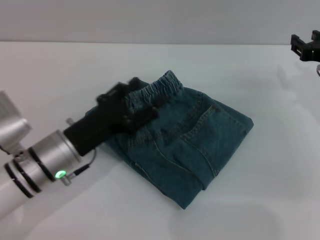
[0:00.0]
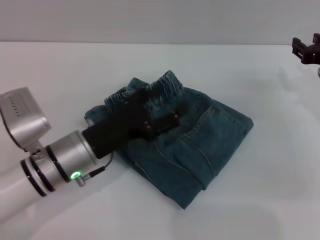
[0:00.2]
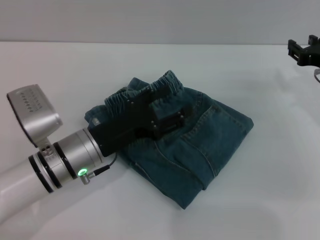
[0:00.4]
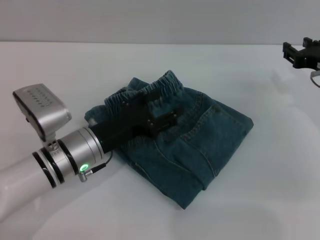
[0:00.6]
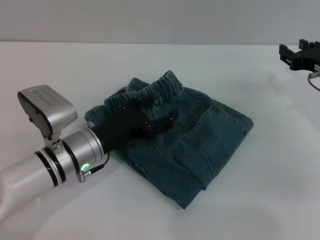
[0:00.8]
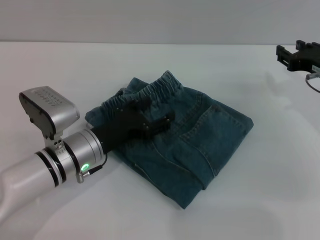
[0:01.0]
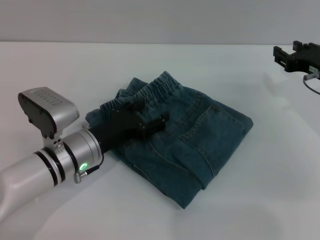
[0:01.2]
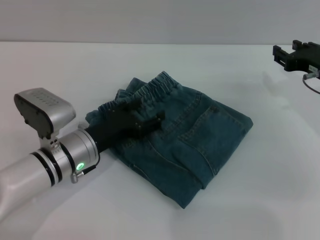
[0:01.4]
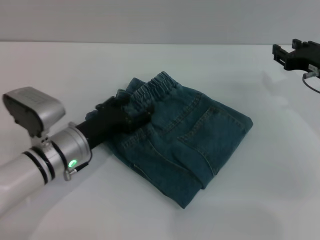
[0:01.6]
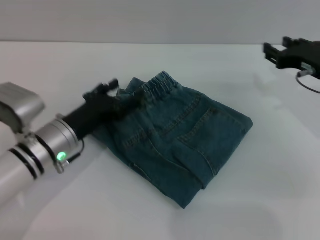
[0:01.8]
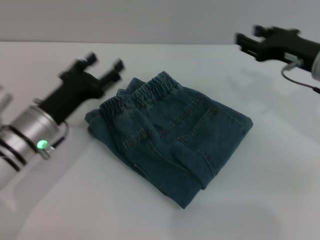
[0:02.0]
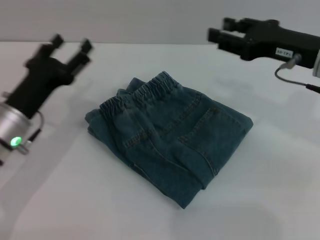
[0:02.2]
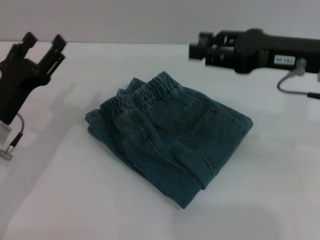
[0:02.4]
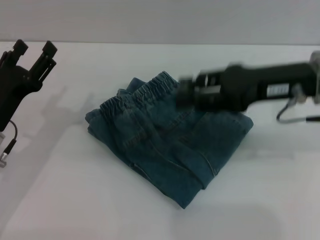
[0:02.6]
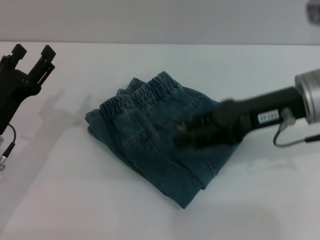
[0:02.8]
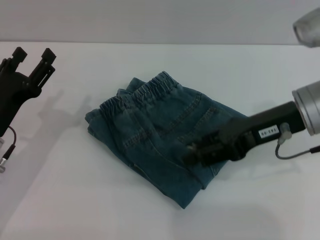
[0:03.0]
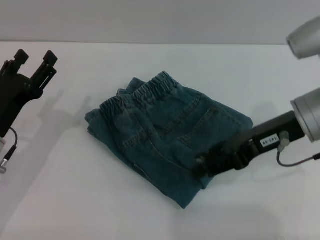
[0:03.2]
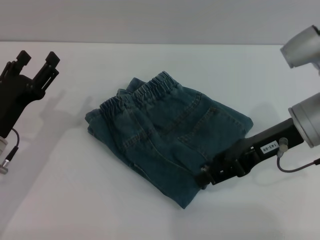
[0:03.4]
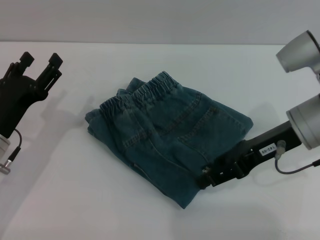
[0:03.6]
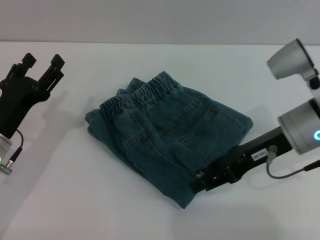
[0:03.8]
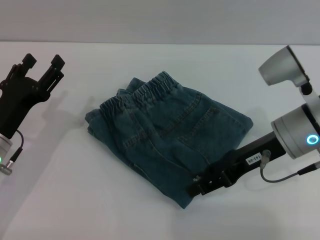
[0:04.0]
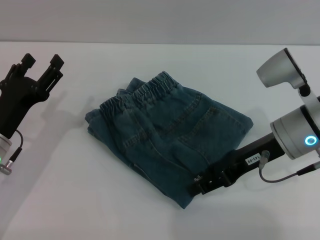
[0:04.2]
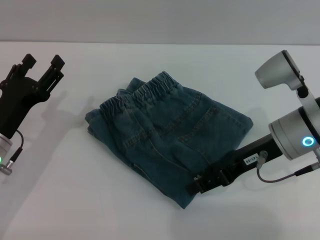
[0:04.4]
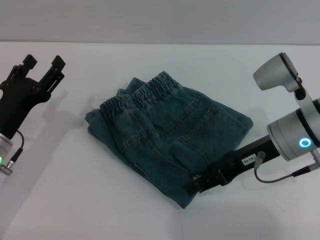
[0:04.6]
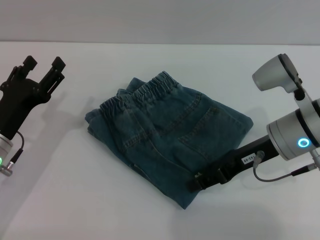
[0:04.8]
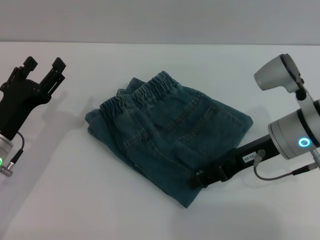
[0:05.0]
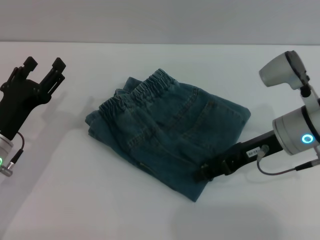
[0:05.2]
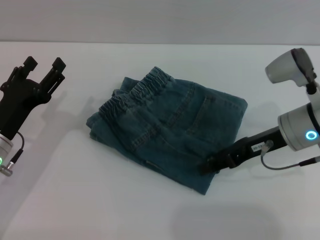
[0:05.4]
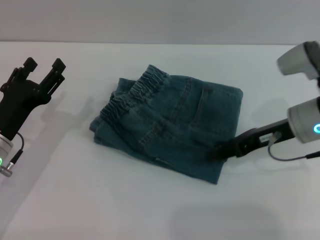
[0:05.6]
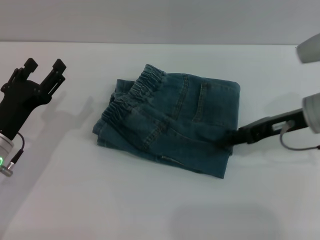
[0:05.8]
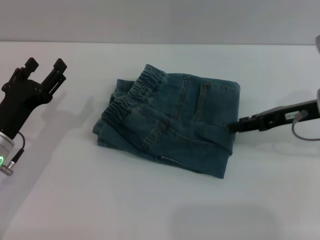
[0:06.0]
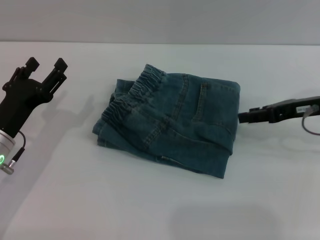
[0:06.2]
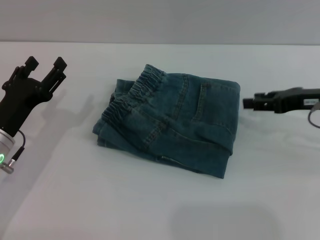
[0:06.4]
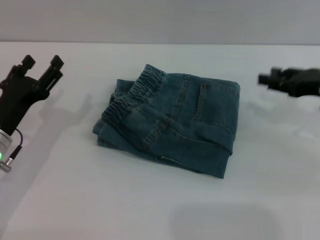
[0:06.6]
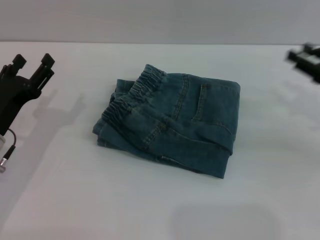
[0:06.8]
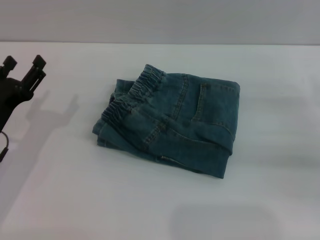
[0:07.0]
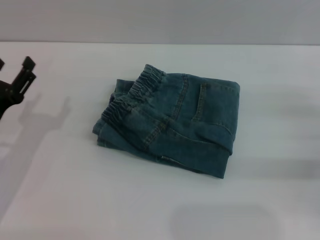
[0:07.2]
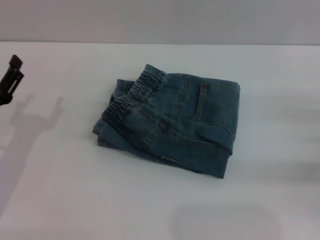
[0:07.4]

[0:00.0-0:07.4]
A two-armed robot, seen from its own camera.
Step, 0:00.0 to 0:06.0: Place the folded trousers onto the center area with the right grippers.
0:00.0 to 0:01.4: The grippers move only a little.
0:01.4 to 0:03.0: The left gripper shifts roughly 10 cm to the left. The right gripper shifts approximately 10 cm to the left, upward and backward.
0:03.0 to 0:04.4: The right gripper shifts approximately 5 cm downward.
0:04.4 to 0:06.0: The right gripper is displaced to the right by some 10 cm.
0:06.0 to 0:07.4: The right gripper heads to the right, backward and downward, covering approximately 15 cm.

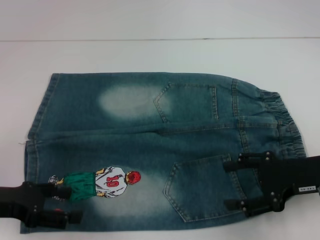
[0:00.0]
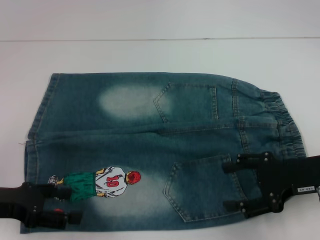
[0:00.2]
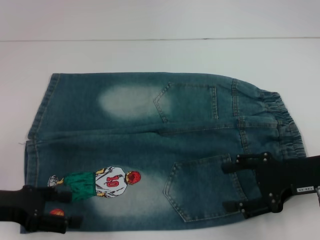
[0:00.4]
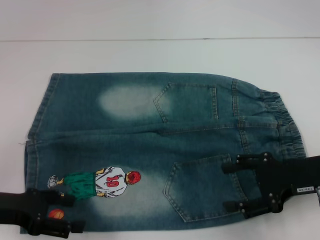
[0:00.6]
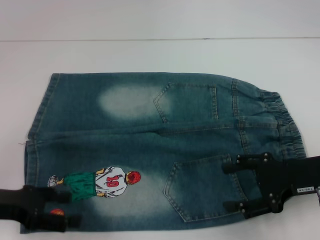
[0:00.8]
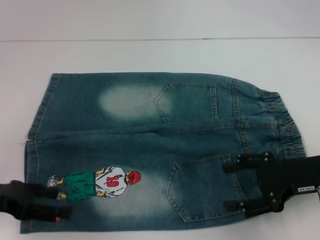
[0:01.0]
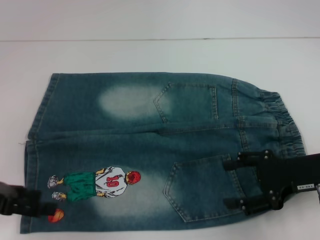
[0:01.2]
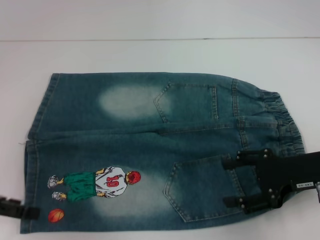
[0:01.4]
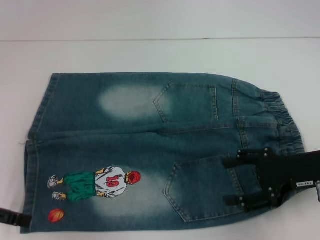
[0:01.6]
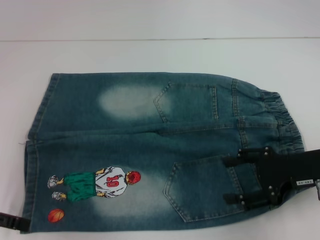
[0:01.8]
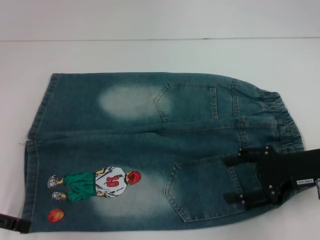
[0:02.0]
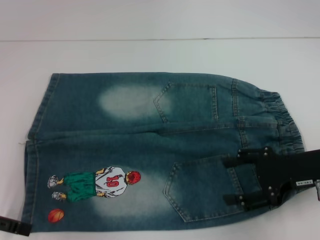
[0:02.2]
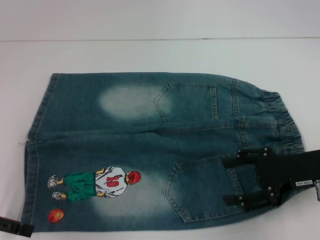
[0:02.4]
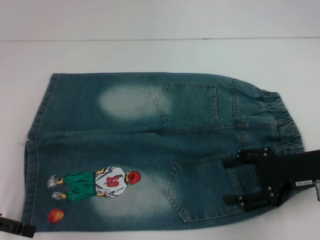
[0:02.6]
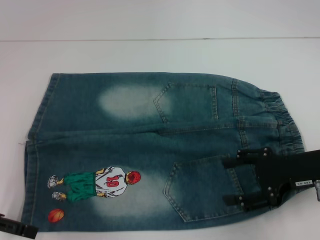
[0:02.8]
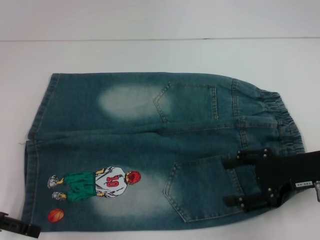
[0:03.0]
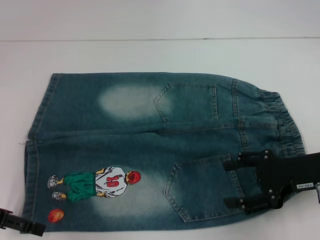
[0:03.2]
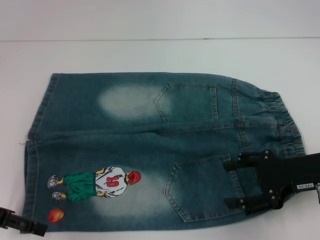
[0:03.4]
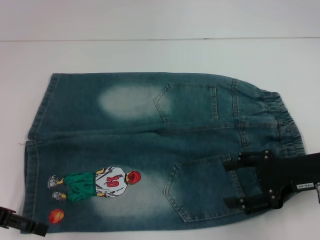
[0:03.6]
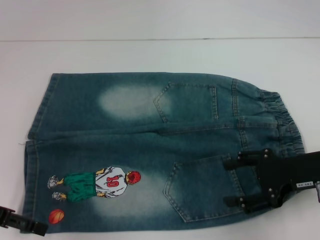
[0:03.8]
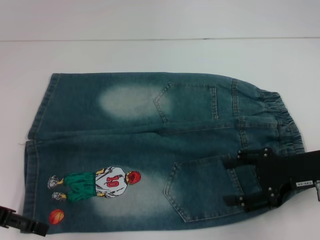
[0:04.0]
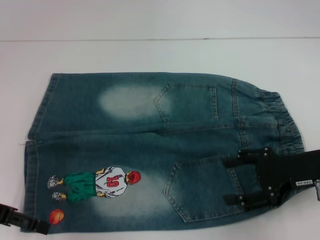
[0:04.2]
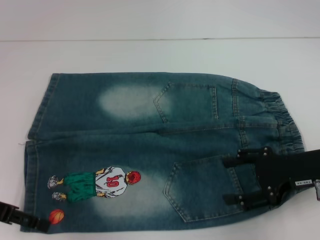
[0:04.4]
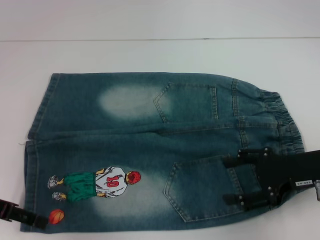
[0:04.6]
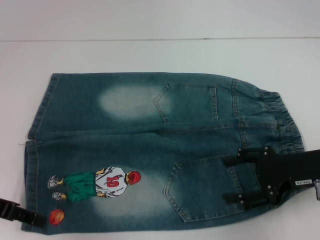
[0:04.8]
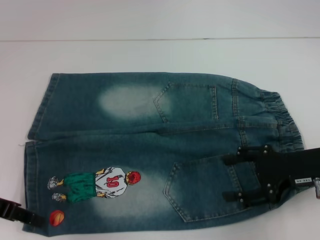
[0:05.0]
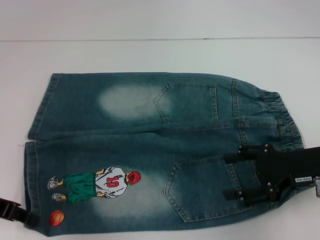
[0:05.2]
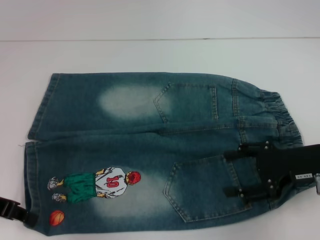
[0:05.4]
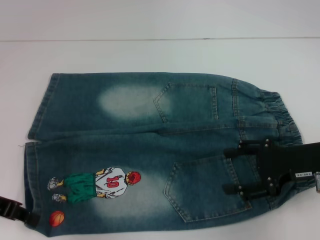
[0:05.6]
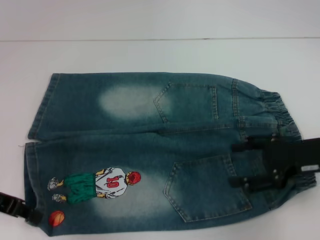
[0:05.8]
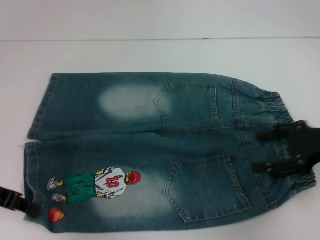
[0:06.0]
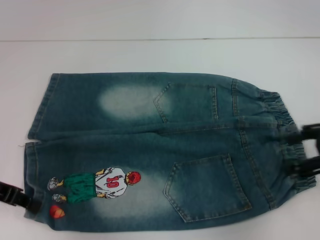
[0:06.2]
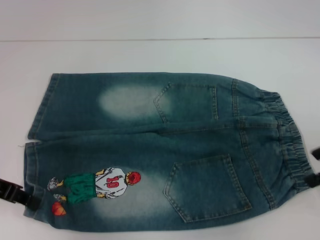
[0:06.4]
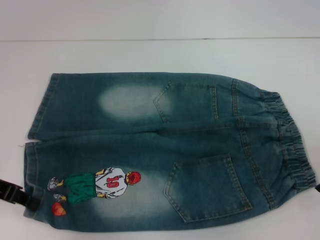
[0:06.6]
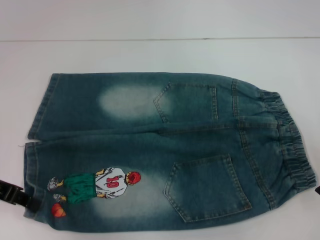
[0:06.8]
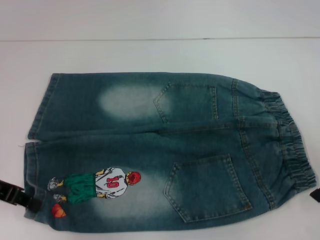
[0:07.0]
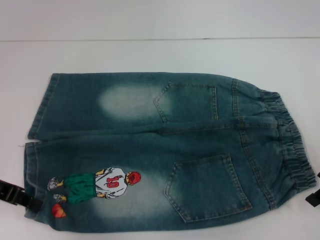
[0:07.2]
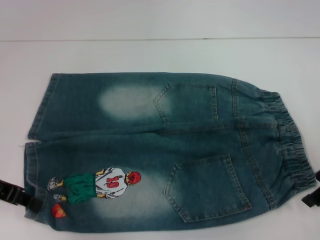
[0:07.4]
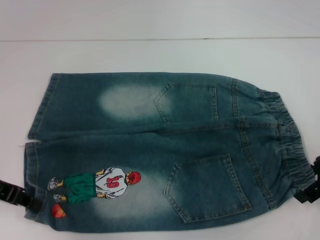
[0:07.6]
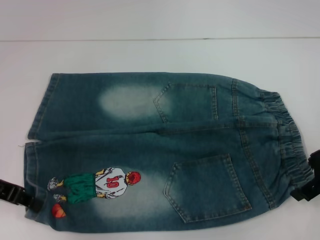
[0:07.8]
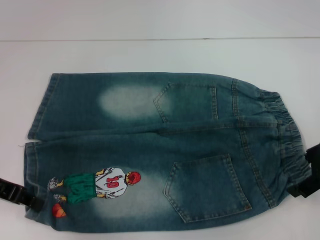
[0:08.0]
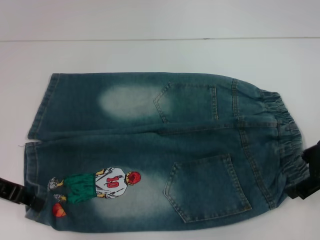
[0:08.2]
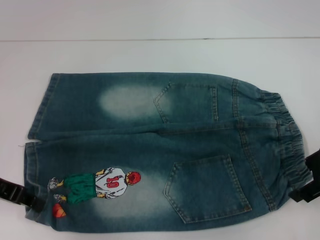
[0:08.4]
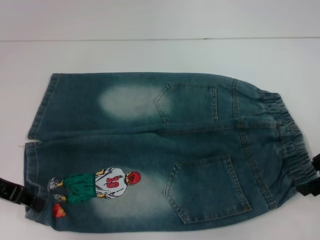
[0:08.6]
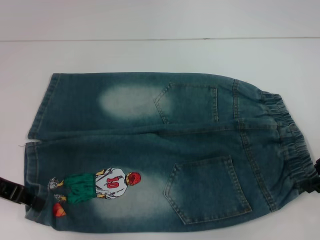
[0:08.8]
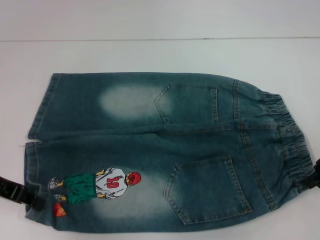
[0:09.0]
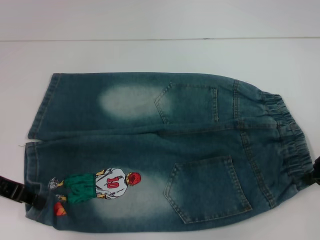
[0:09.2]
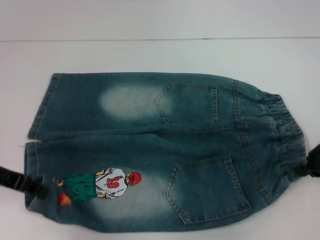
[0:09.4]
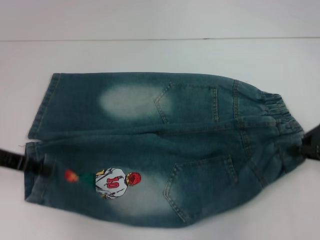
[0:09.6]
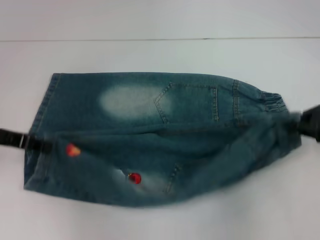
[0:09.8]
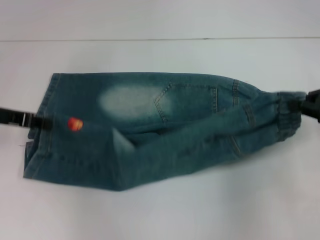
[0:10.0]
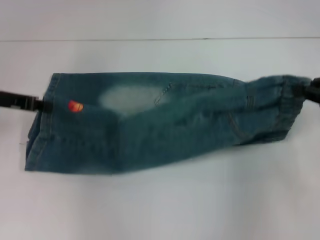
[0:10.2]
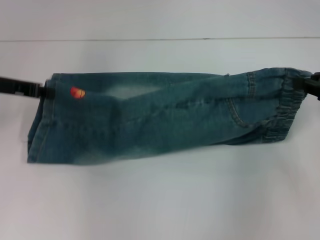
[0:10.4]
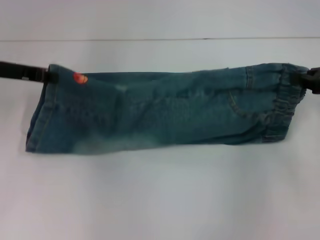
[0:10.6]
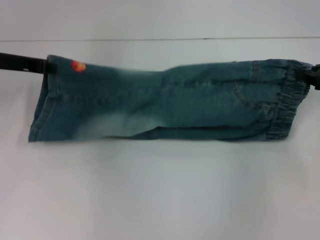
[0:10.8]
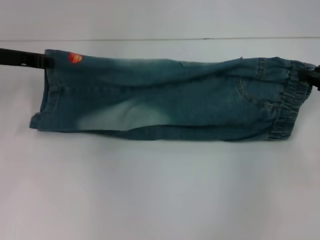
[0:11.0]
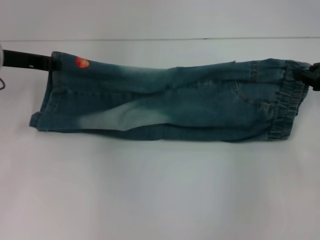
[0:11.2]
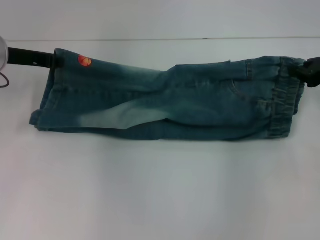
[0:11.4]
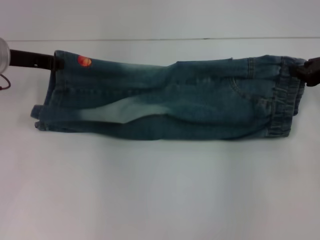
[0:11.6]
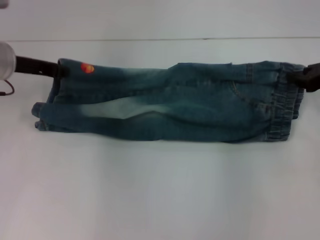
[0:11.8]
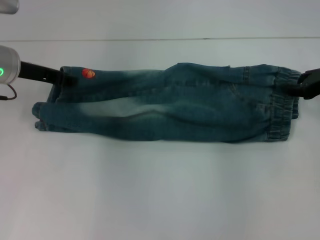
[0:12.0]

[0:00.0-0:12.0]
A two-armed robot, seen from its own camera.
Step, 0:00.0 to 0:05.0: Grab the lower left pant leg with your left hand.
Step, 0:05.2 to 0:09.0: Hold the lower right waistband with your right hand.
0:00.0 to 0:01.6: The left gripper shifts by approximately 5 cm.
0:03.0 to 0:04.4: The grippers move only a little.
0:04.4 to 0:06.0: The left gripper closes up. The right gripper moves approximately 5 cm.
0:07.6 to 0:09.0: The right gripper closes its fingers.
0:09.0 to 0:10.4: The right gripper shifts by approximately 5 cm. Meanwhile the left gripper heads forward, covering roughly 10 cm.
0:10.4 to 0:12.0: The left gripper moves roughly 5 cm.

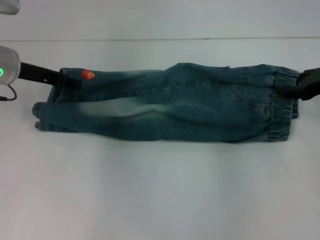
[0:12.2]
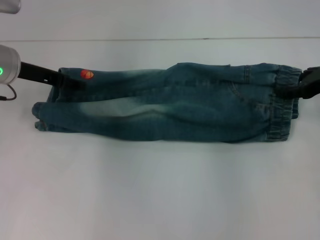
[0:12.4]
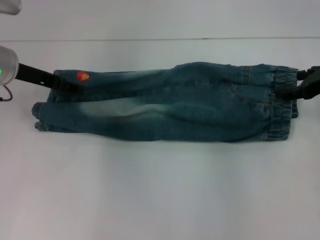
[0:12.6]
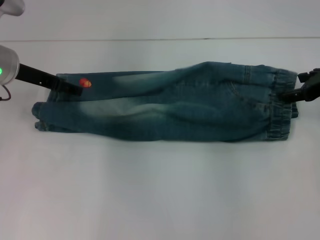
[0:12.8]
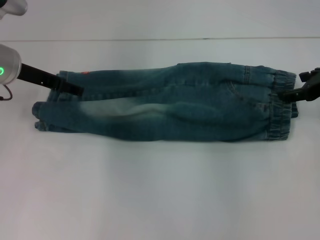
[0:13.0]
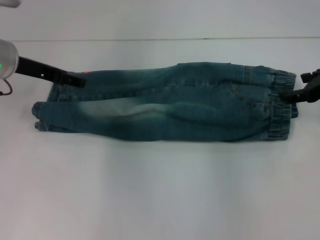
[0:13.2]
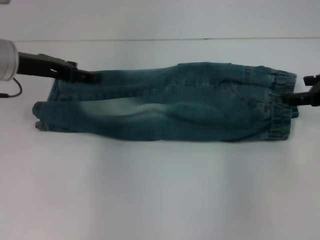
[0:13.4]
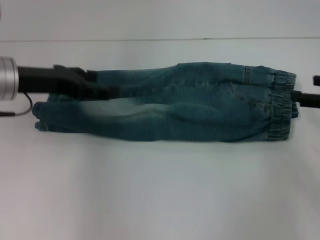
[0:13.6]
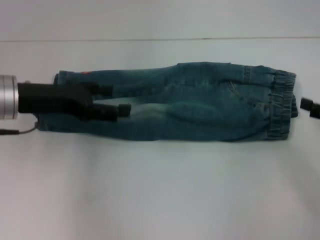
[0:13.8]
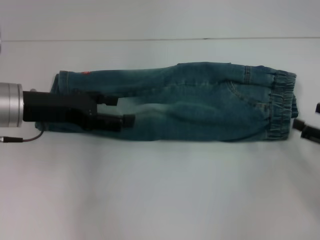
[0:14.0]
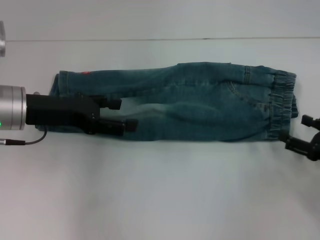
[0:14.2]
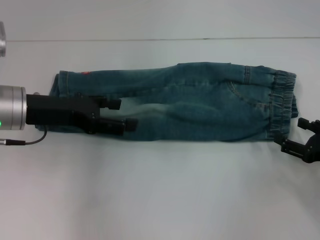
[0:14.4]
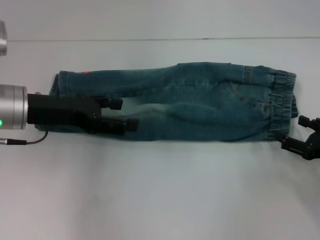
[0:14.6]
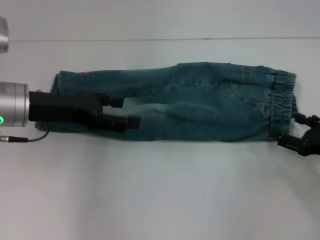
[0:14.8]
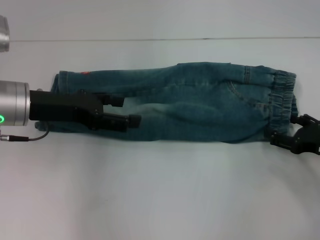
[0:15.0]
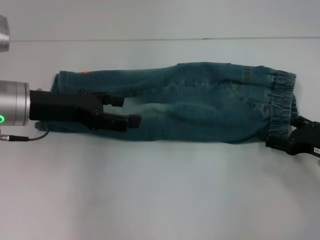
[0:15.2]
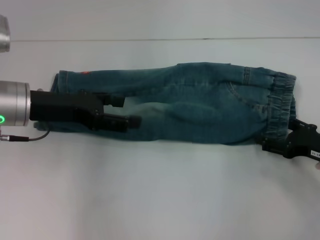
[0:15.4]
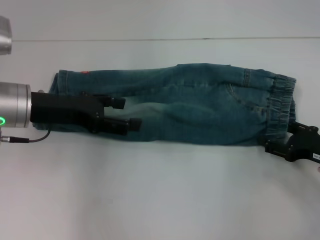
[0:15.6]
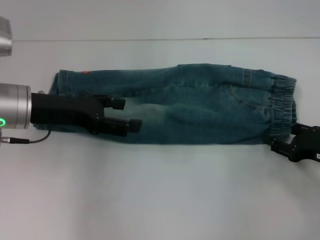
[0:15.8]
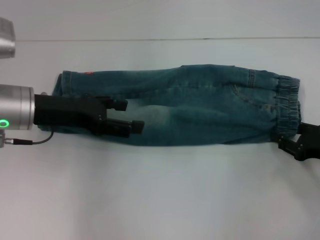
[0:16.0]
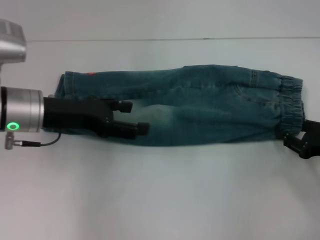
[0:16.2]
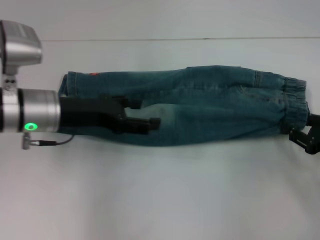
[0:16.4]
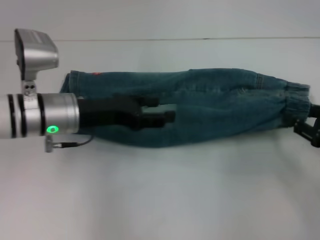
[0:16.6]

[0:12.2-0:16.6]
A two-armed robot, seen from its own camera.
Step, 0:13.2 to 0:15.8: Grab the waistband with your right hand.
0:12.2 to 0:13.6: The grippers both shift backward by some 5 cm. The left gripper opens up, while the right gripper opens its fingers.
0:13.6 to 0:15.2: The right gripper moves downward, some 10 cm.
0:15.2 to 0:16.6: The left gripper is displaced to the right by about 5 cm; the right gripper changes place by roughly 5 cm, and closes.
